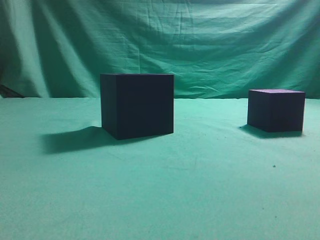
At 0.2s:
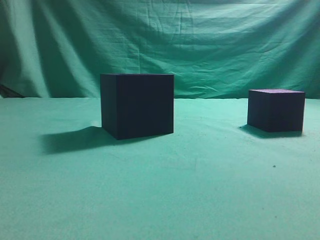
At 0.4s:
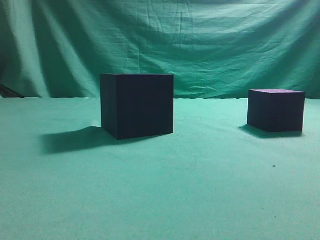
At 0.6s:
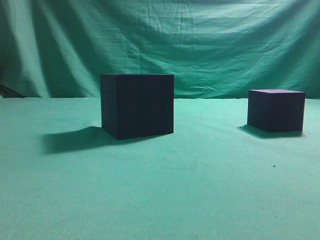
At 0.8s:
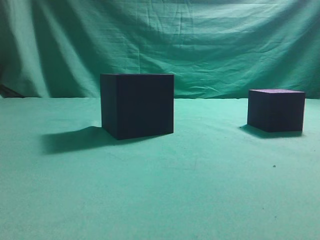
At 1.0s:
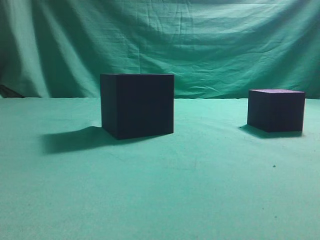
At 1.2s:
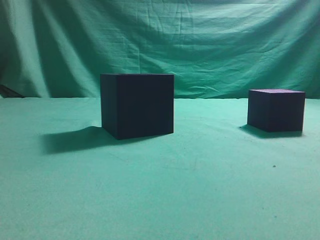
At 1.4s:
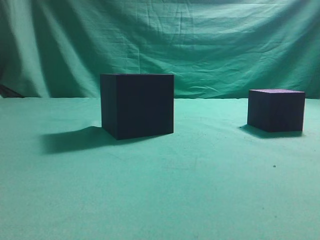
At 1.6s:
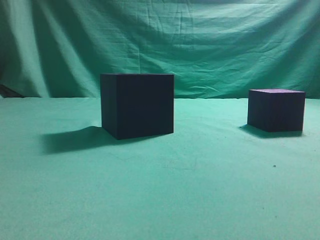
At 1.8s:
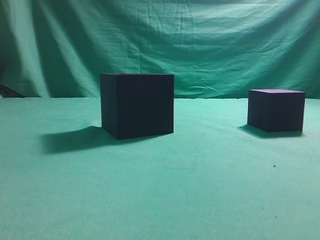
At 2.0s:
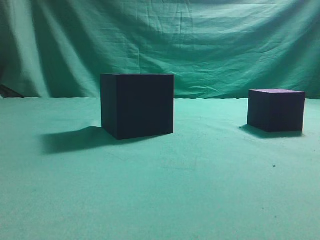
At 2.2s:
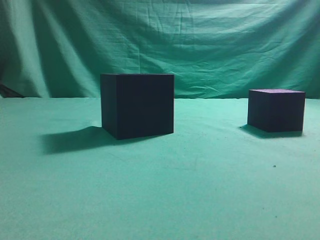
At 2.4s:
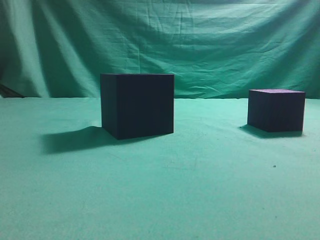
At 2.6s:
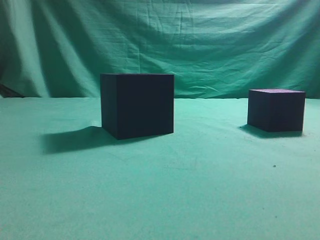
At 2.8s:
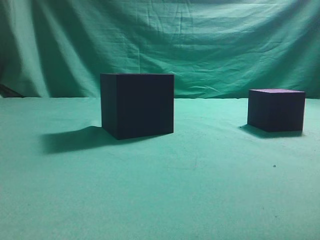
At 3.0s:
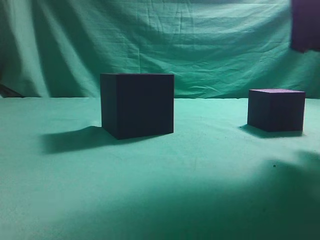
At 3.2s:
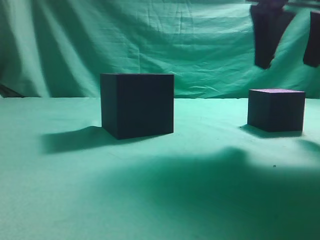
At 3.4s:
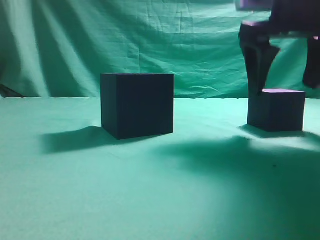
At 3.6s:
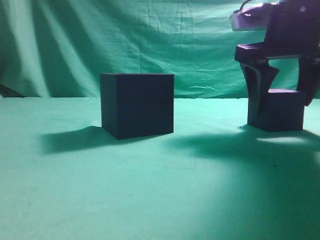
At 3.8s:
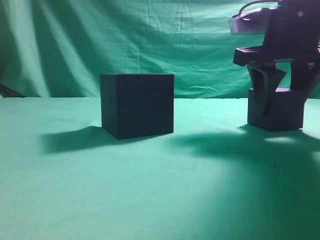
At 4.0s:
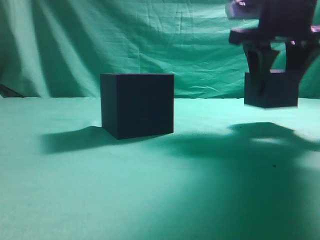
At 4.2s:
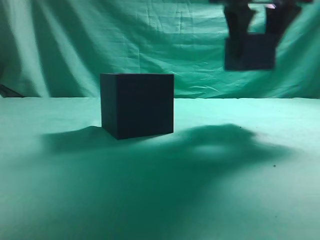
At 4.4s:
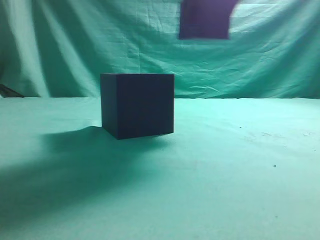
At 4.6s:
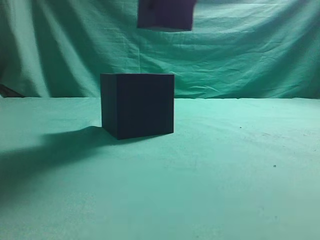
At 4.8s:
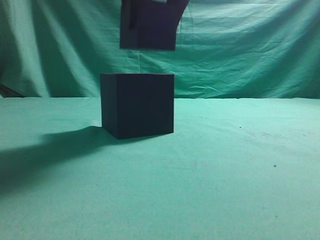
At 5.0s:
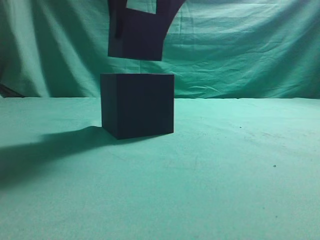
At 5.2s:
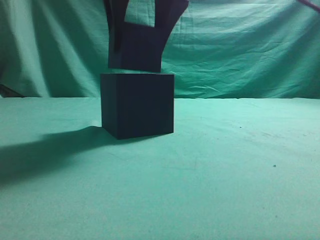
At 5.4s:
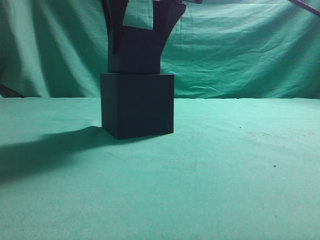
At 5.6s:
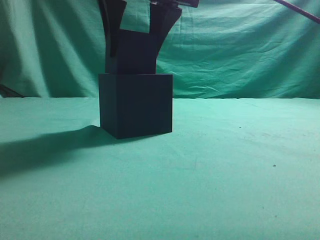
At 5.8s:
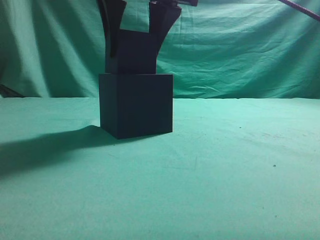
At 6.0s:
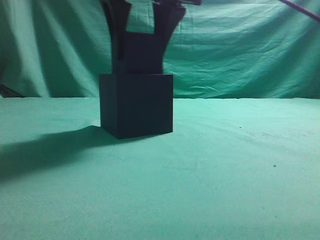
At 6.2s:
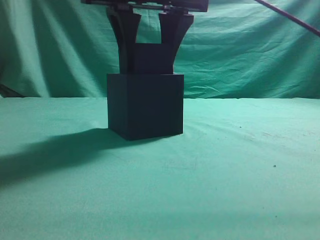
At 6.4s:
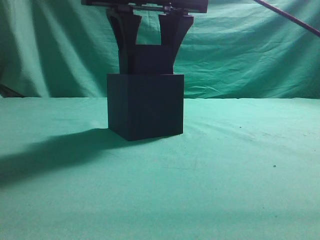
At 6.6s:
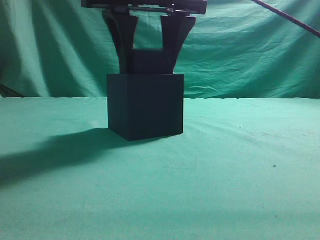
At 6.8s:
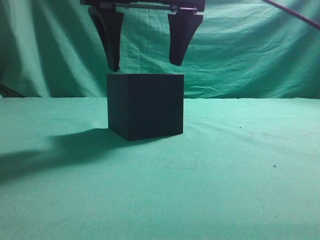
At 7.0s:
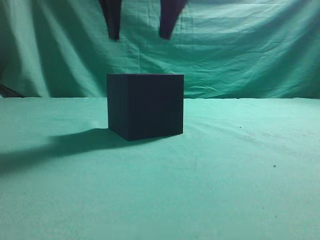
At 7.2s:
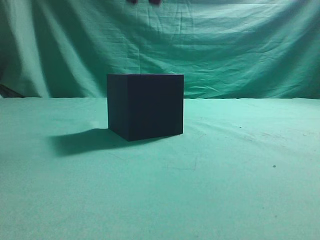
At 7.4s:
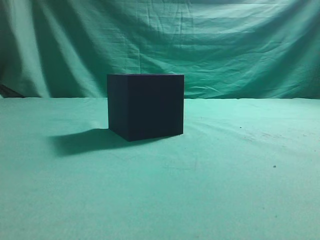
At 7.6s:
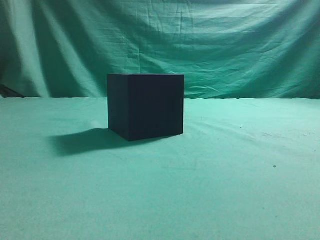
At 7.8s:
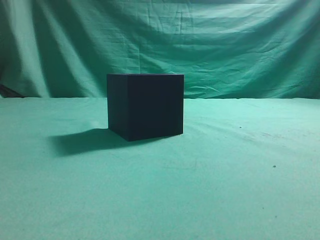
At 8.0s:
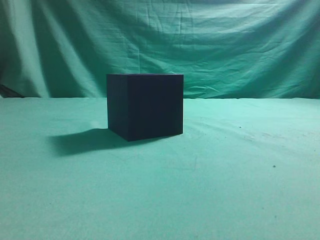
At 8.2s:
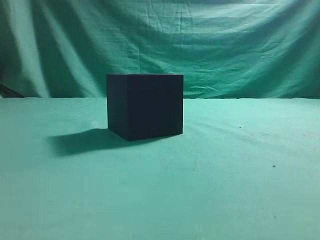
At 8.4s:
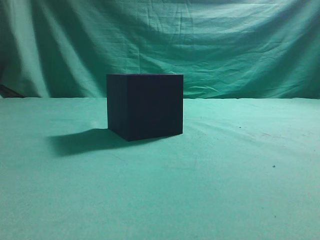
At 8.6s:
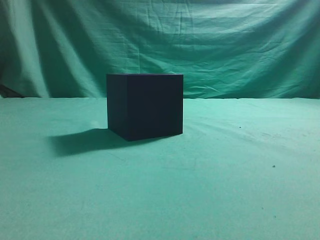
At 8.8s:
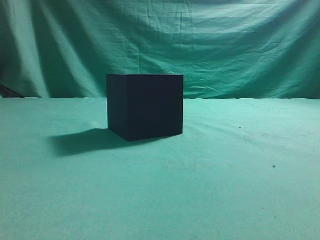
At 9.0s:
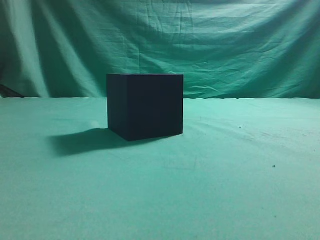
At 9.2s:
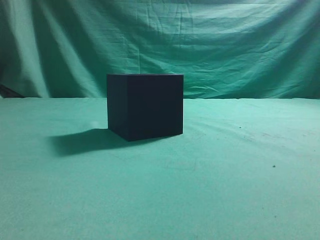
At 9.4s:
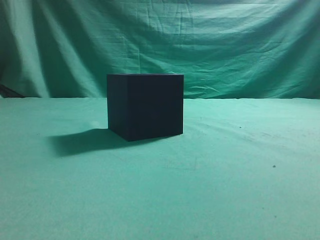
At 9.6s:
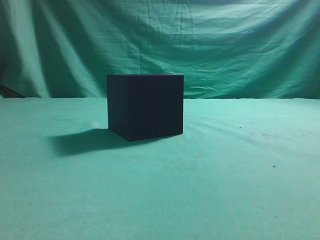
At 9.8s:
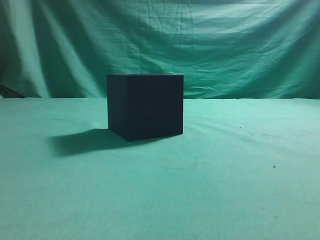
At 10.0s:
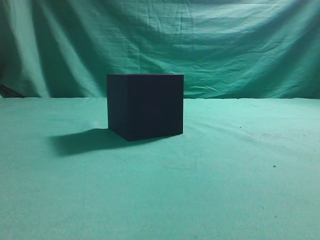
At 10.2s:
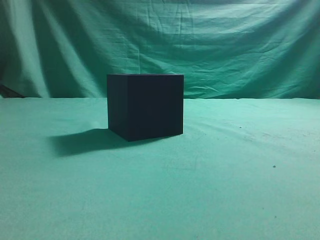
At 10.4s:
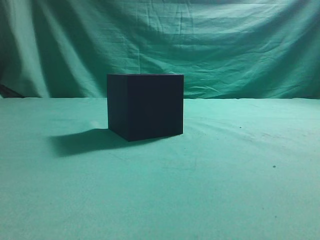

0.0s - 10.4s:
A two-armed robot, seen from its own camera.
Task of the whole recording: pick up the cube block and place it into the cube groove.
Step, 0.0s - 3.8s: Grasp the cube.
Step, 4.0s - 6.8s: Place cube into the cube-shaped recess.
1.4s - 3.0s: The right gripper moves forward and to the left, some 25 cm.
3.0s - 4.4s: The right gripper goes approximately 10 cm to the left and forward, and opens its fingers.
4.4s - 6.0s: The right gripper moves to the left, about 10 cm.
6.0s - 7.4s: The right gripper goes roughly 10 cm upward, and closes up.
